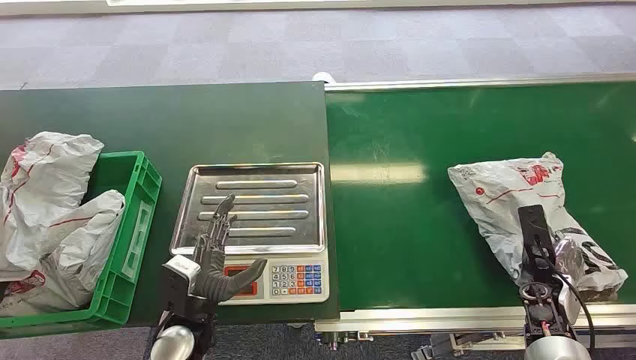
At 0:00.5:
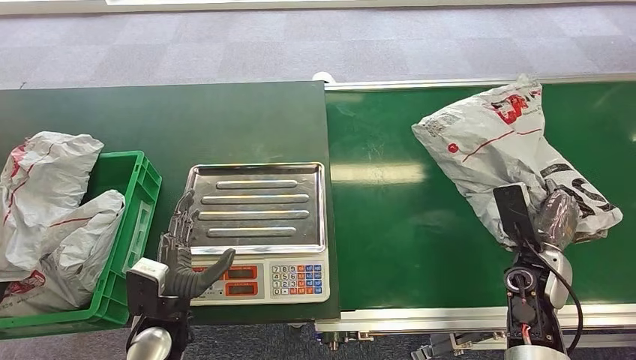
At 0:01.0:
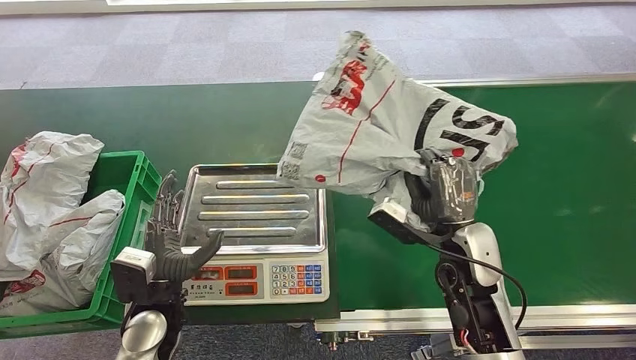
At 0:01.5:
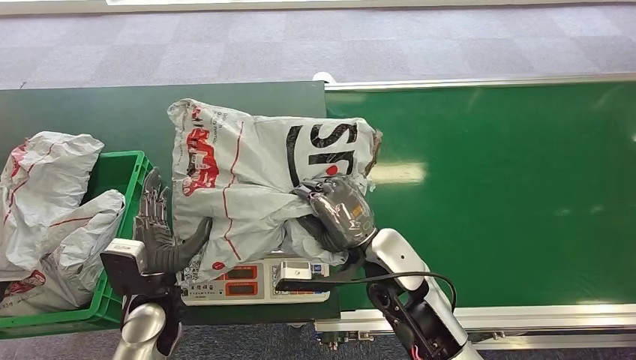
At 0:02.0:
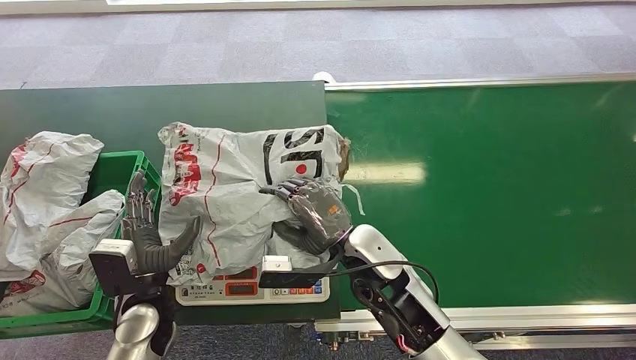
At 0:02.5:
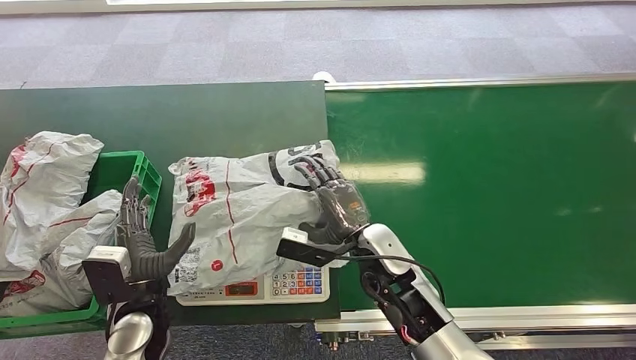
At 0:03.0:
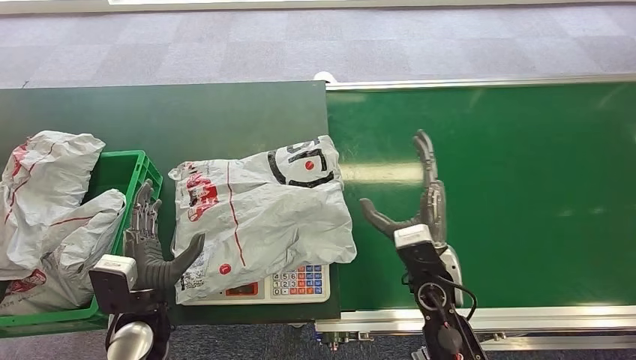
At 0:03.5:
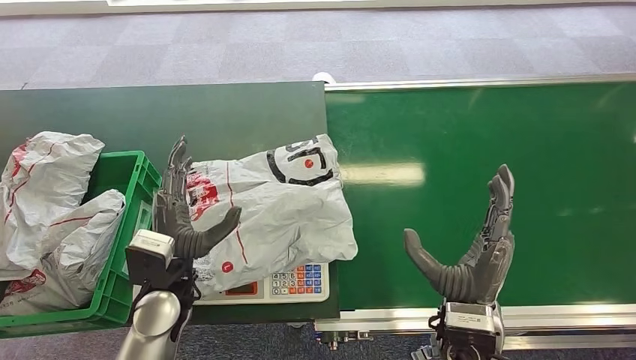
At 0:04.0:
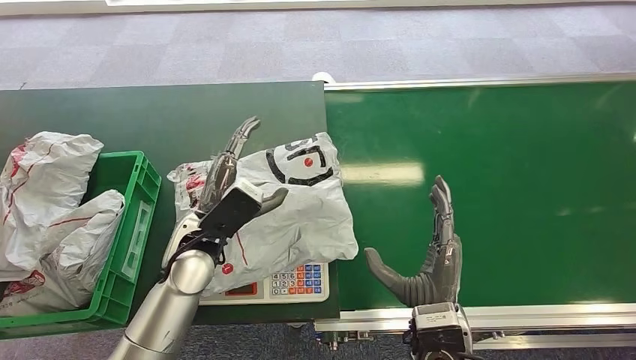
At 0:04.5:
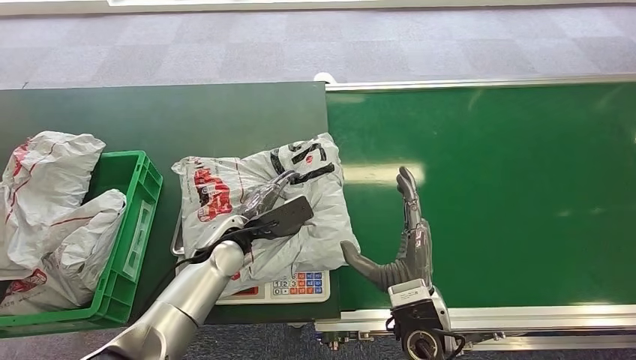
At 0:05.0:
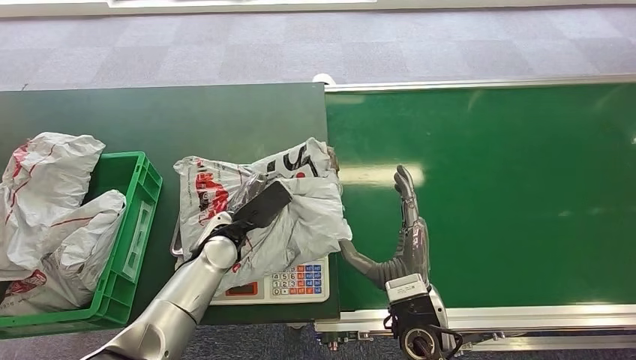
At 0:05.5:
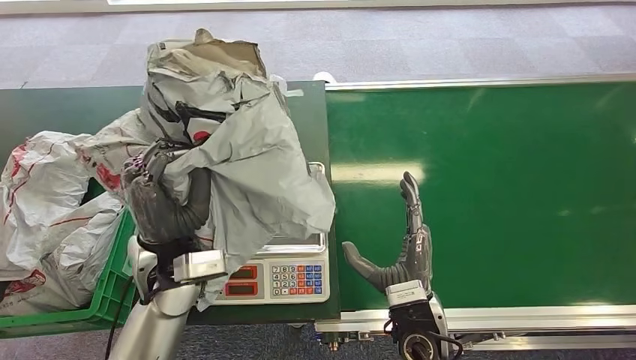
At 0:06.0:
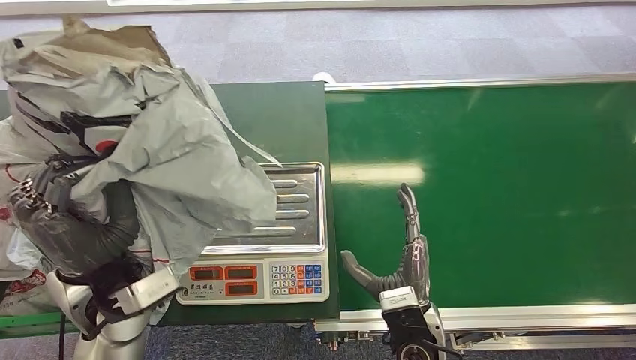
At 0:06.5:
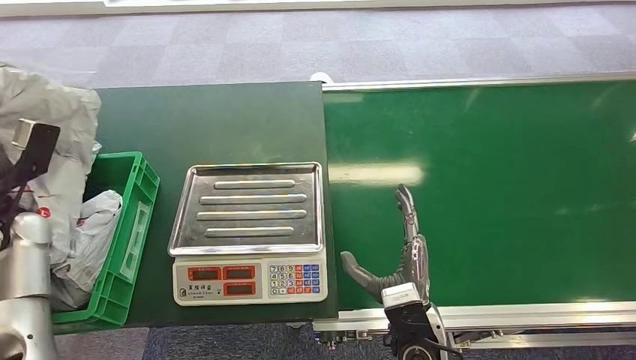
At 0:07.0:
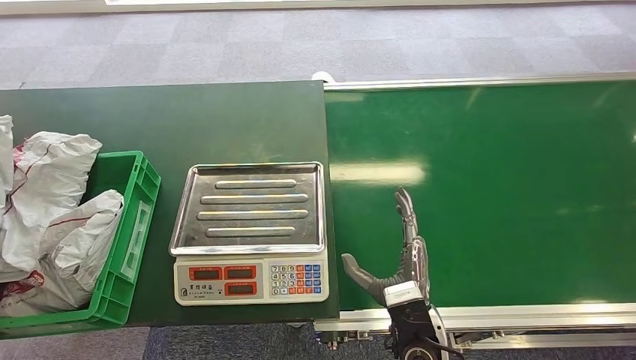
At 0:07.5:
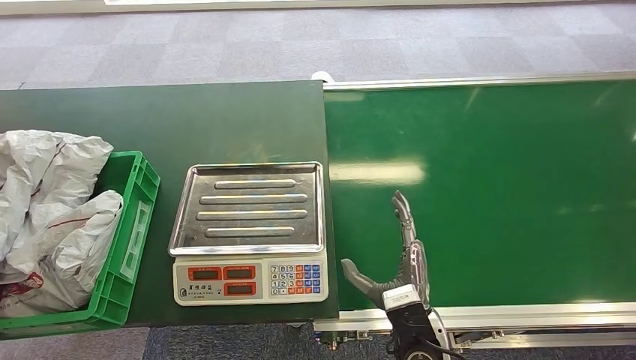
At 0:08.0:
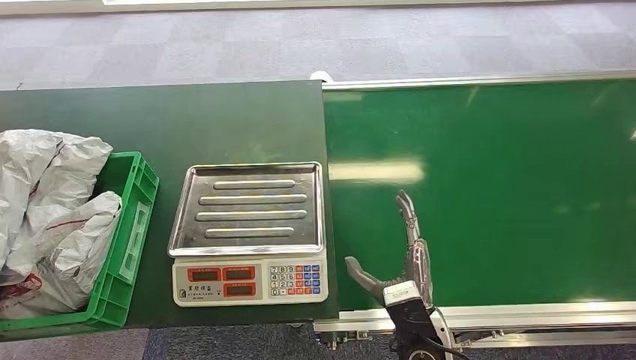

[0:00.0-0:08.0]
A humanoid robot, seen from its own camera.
Step, 0:00.0 to 0:00.5: Pick up the package from the conveyor belt.
Step, 0:01.5 to 0:02.5: Place the package onto the inbound machine.
Step, 0:05.0 to 0:05.5: Pick up the package from the inbound machine.
Step, 0:06.5 to 0:07.5: Place the package into the parcel locker.
0:02.0 to 0:04.0: The left hand moves upward, to the right and forward, approximately 15 cm; the right hand is displaced backward and to the right by some 15 cm.
